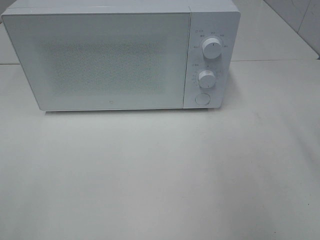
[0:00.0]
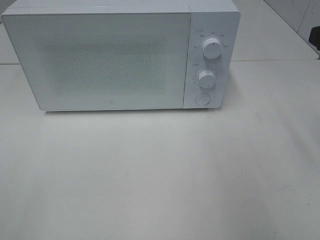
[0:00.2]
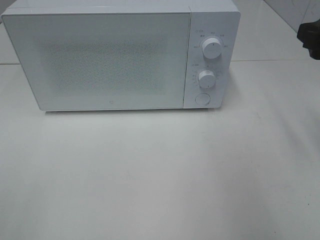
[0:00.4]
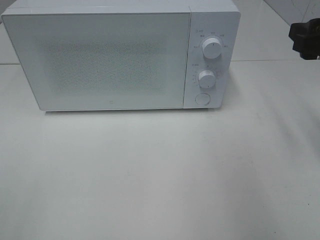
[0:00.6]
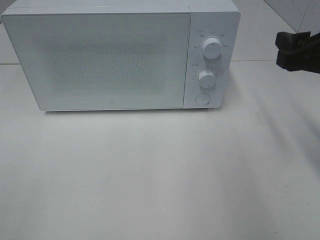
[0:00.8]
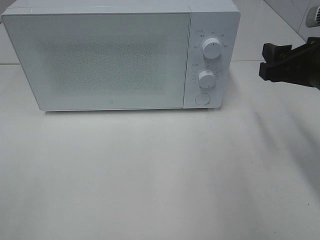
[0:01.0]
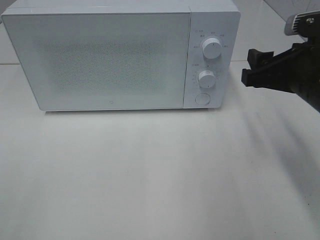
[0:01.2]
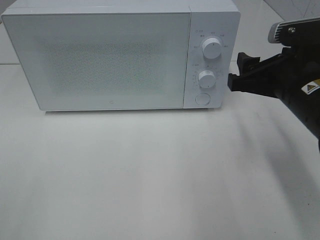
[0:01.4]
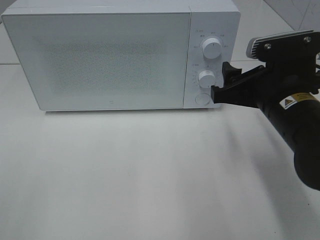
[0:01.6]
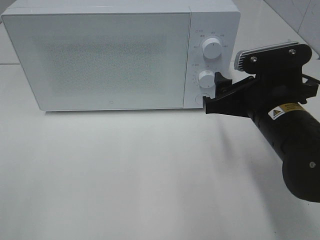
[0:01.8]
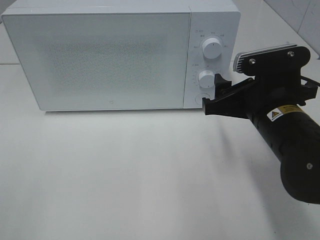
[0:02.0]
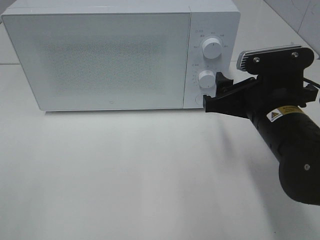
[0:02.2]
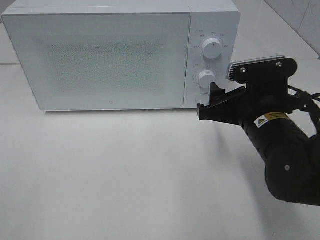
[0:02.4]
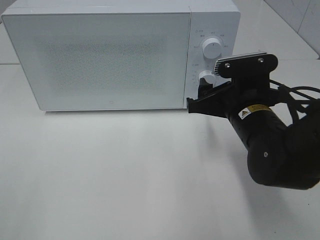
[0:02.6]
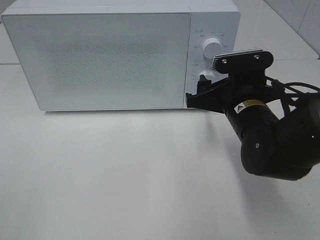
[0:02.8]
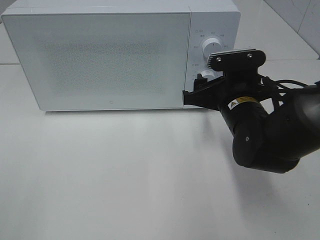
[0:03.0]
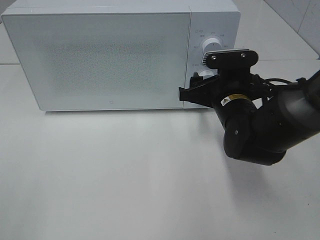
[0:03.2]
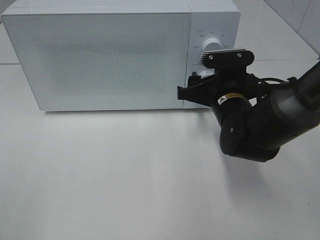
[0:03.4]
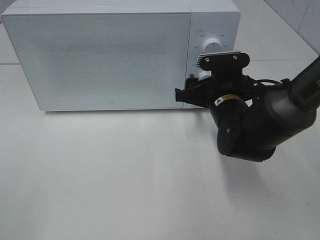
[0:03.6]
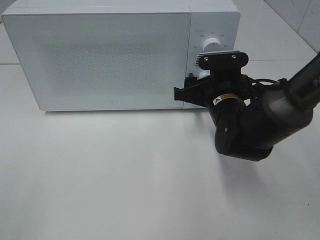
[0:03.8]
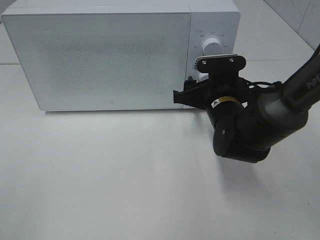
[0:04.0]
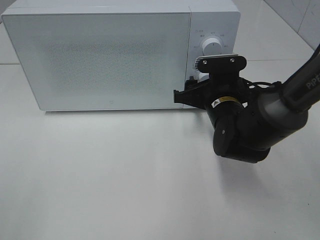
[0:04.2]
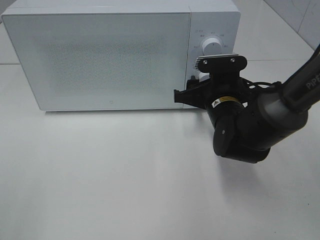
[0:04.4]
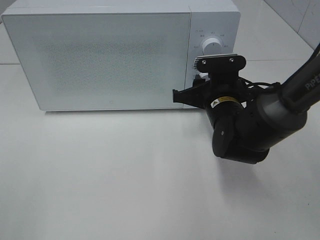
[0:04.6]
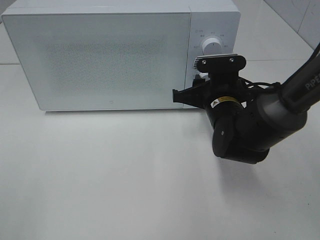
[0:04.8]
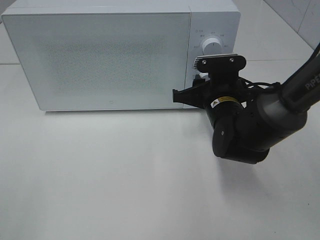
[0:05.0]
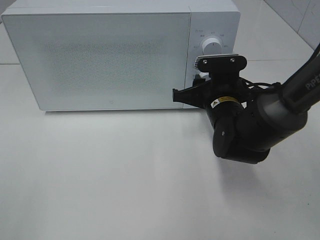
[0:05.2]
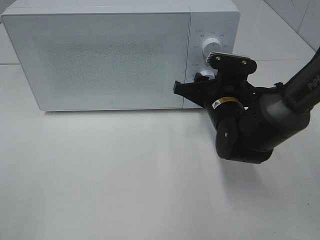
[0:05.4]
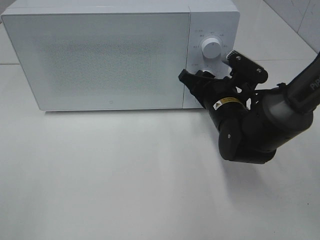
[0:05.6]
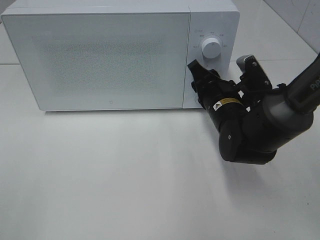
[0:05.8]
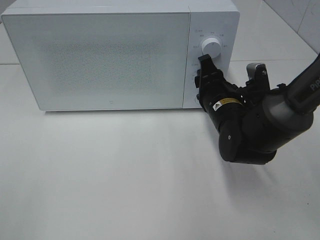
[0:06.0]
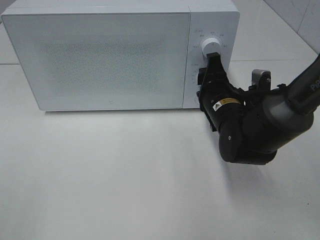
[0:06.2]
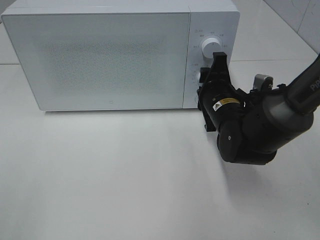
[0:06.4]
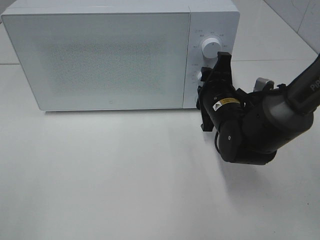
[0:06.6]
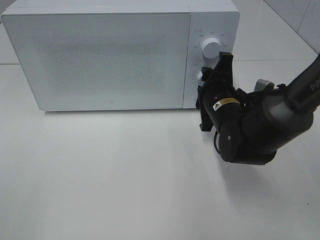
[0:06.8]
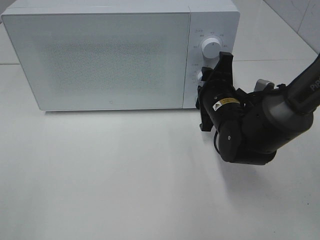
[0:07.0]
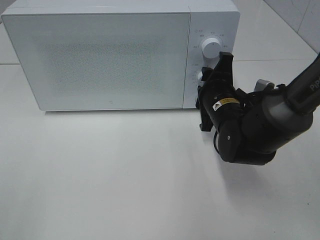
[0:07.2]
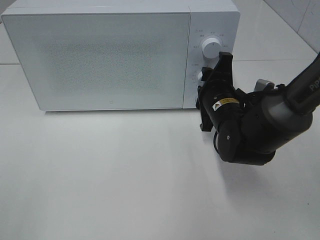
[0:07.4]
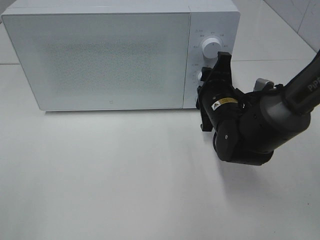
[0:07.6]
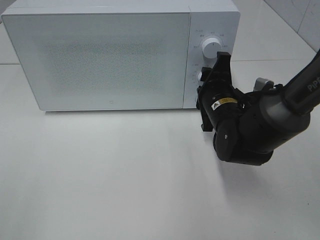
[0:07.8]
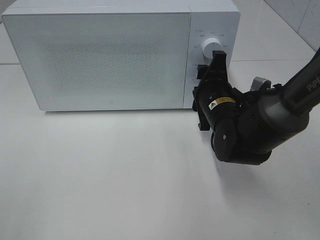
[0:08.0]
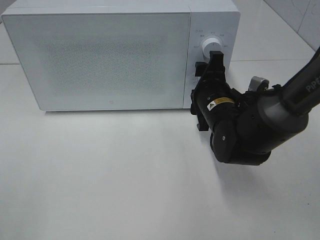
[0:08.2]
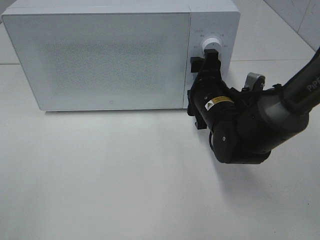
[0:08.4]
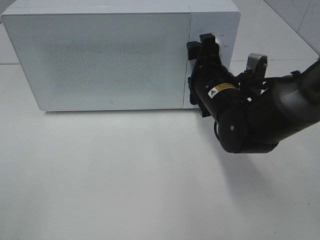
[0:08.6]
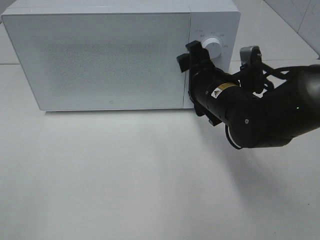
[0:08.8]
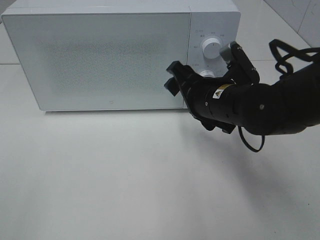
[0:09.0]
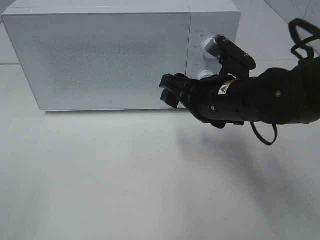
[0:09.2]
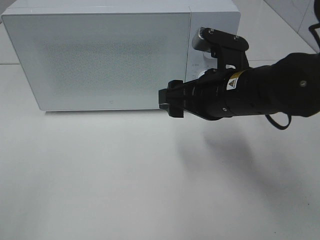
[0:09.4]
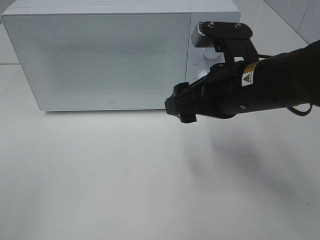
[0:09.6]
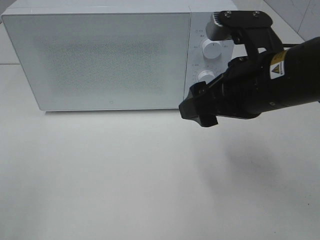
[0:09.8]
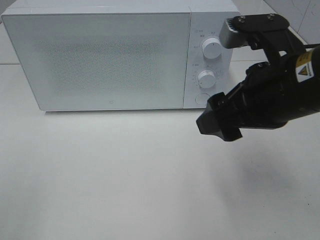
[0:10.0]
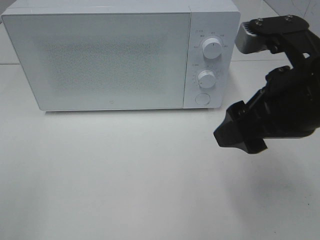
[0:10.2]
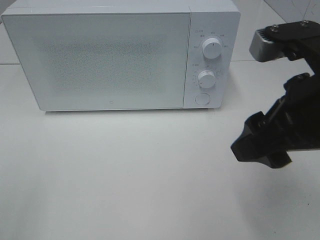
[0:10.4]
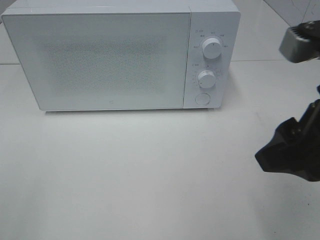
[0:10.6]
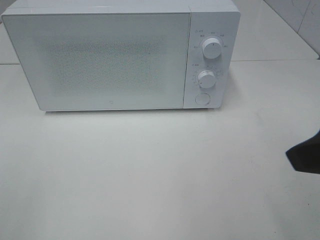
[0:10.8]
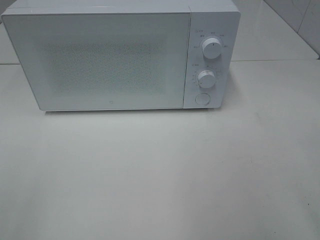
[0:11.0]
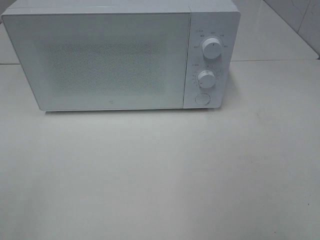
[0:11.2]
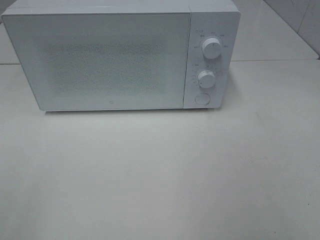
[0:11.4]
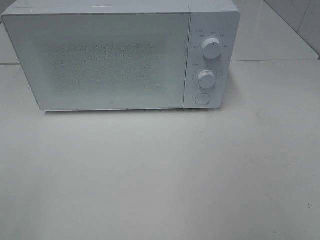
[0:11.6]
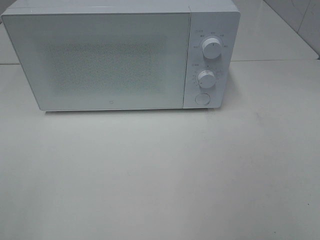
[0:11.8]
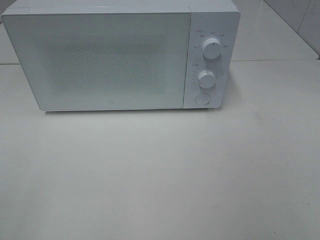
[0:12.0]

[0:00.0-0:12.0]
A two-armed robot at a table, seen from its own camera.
Task of the whole recording: Heat the burger.
Step, 0:00.0 to 0:08.0: Right hand: twist timer button.
0:00.0 to 0:01.6: The right gripper is displaced to the left and downward by roughly 15 cm.
0:01.6 to 0:03.0: The right gripper heads forward and downward, covering about 10 cm.
0:03.0 to 0:04.4: The grippers stay close to where they were, moving slightly.
0:07.6 to 0:09.0: The right gripper changes place by about 5 cm, and opens its fingers.
0:09.0 to 0:10.4: The right gripper goes about 20 cm backward, upward and to the right.
0:10.4 to 0:12.0: The right gripper moves backward and to the right, approximately 20 cm.

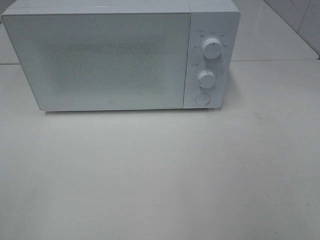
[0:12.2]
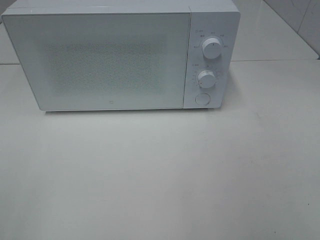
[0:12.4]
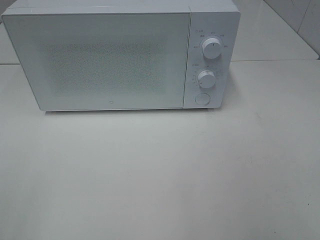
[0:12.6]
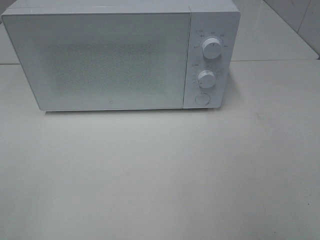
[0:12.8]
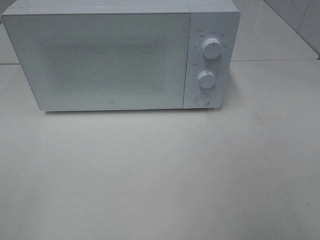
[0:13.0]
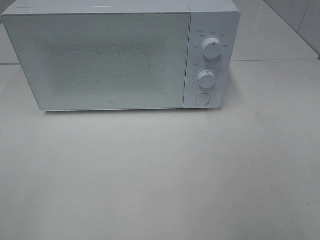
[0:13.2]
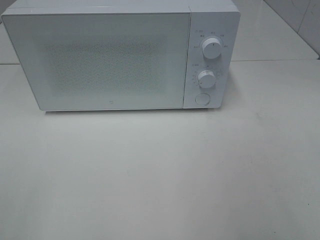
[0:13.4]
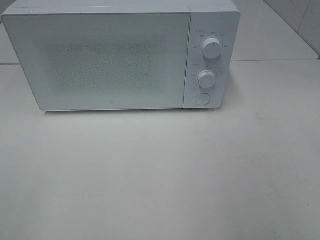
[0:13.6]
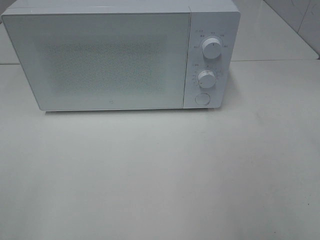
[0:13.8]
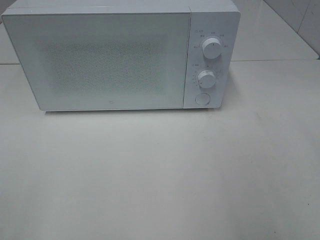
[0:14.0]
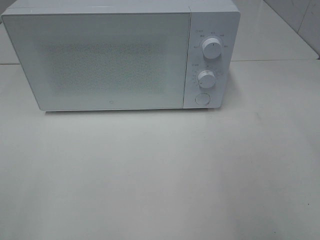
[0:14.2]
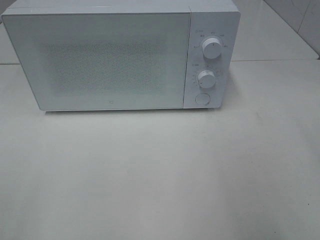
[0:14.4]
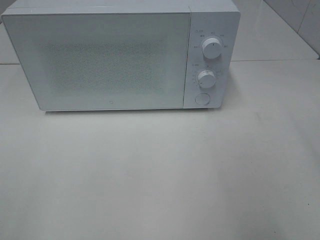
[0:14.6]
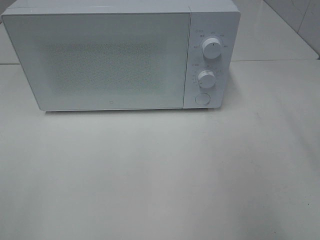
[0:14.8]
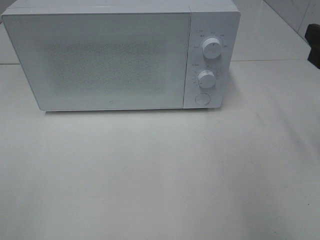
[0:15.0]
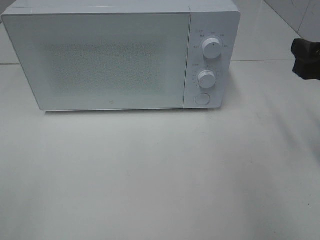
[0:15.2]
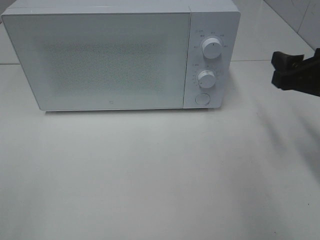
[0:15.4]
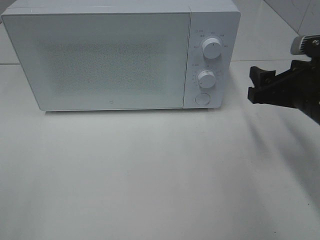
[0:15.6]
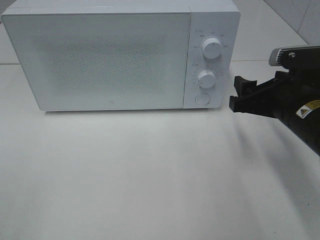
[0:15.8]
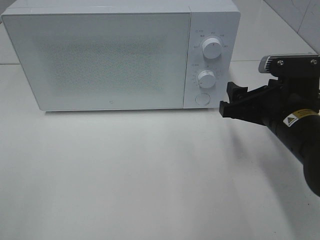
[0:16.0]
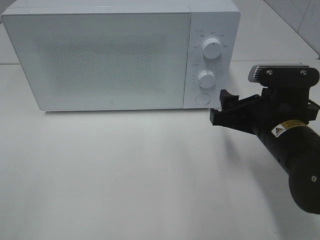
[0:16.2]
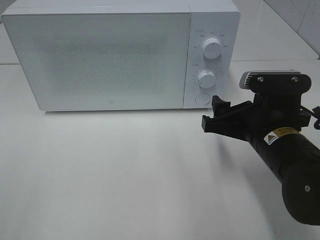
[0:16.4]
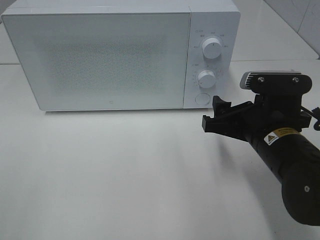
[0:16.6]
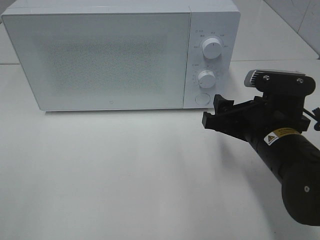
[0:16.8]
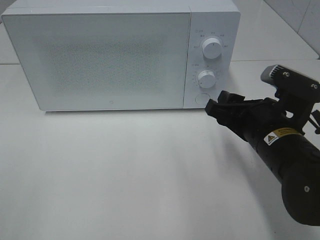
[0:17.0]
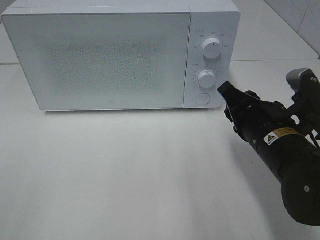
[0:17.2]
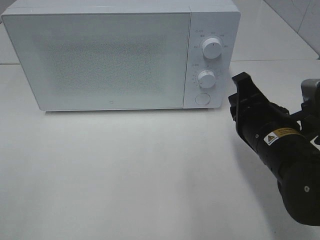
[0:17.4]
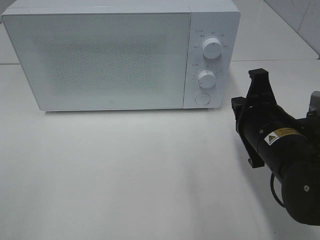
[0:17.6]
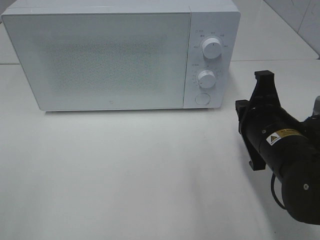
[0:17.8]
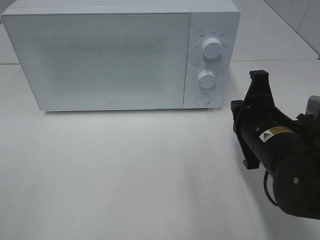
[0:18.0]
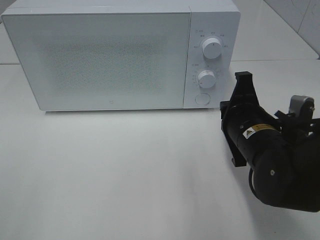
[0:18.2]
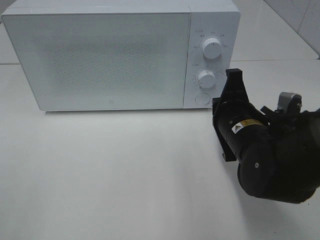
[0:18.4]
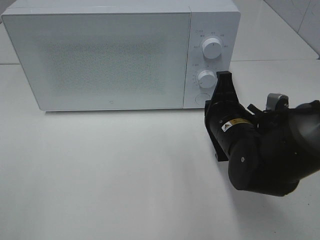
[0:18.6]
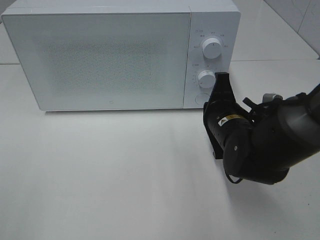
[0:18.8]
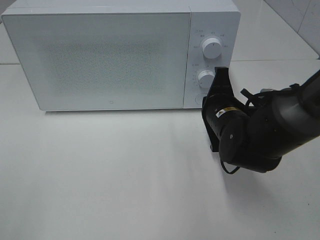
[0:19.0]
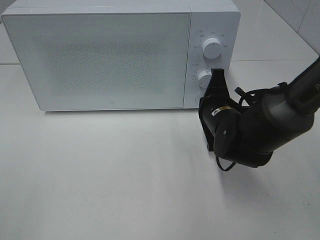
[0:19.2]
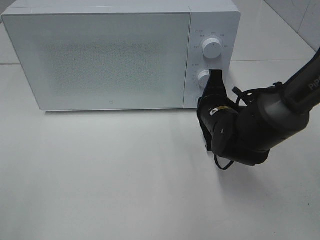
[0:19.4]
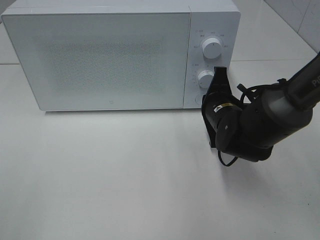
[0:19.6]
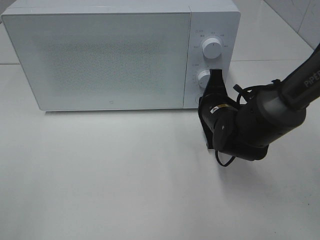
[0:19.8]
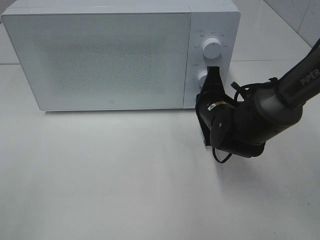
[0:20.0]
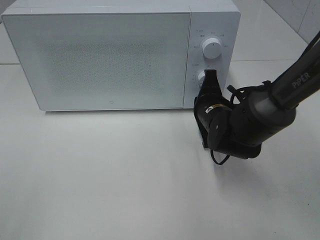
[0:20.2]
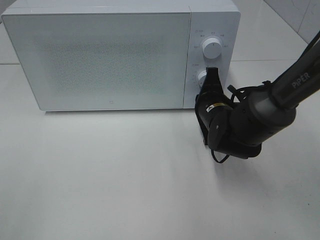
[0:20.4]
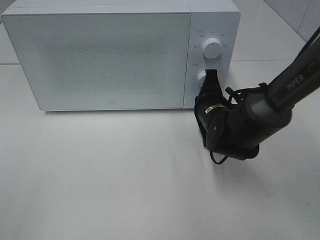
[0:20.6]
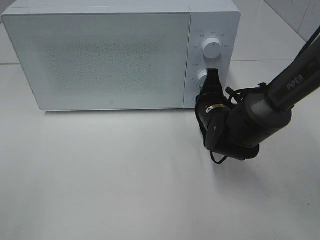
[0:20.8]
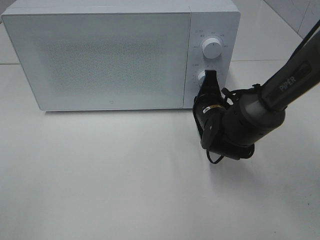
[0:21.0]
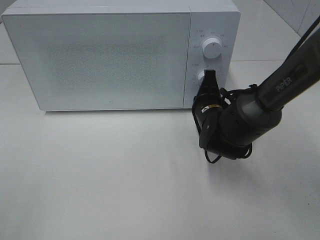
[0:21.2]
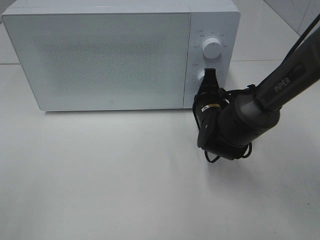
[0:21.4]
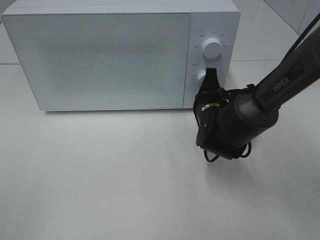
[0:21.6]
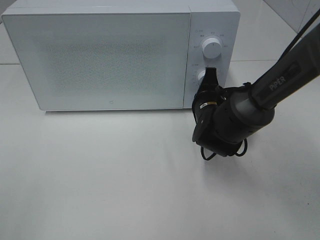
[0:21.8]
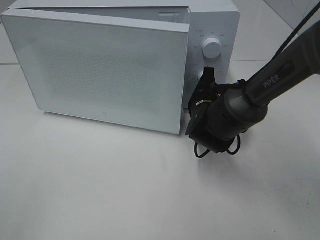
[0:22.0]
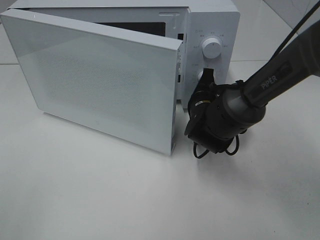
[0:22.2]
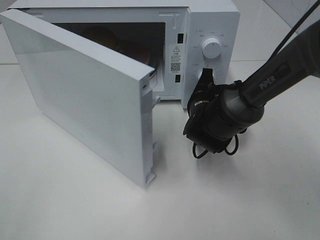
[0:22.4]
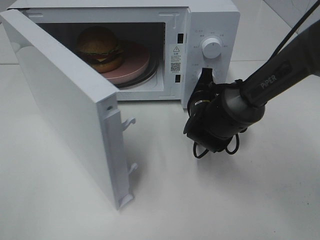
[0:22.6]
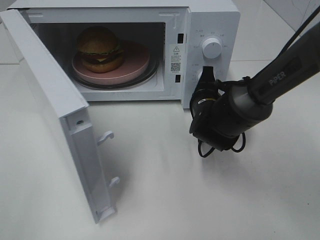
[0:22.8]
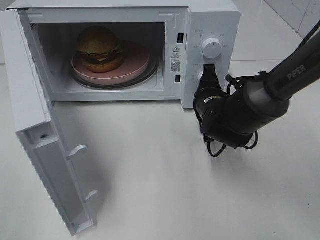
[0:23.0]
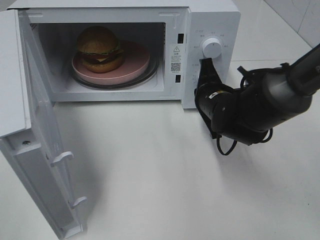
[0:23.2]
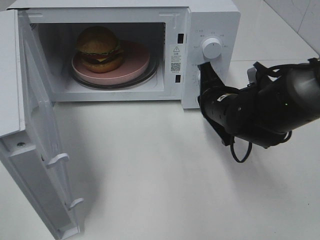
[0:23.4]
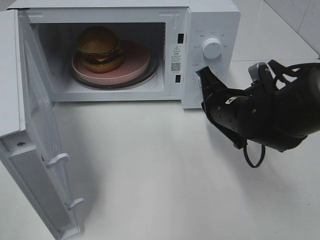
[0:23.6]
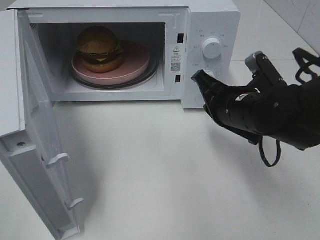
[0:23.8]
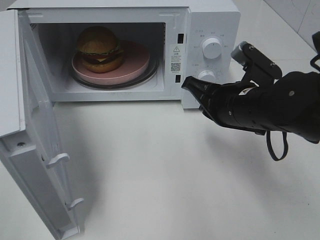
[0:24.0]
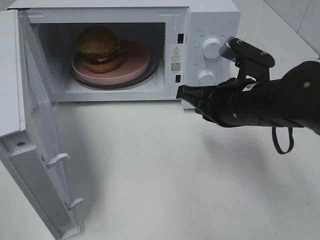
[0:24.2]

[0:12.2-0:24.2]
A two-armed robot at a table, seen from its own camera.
Task of the whole recording: Heat the burger.
Step, 0:12.2 to 0:23.2: Right hand: press the switch.
0:13.8 to 0:15.2: The right gripper shifts some 20 cm forward and downward.
0:15.2 to 0:16.6: The right gripper travels to the left and downward by some 15 cm.
0:16.6 to 0:18.2: The right gripper closes its fingers.
0:18.2 to 0:19.8: The right gripper travels forward by about 10 cm.
0:19.8 to 0:21.2: The grippers make only small movements.
0:22.6 to 0:24.2: The right gripper heads upward and backward, covering about 15 cm.
